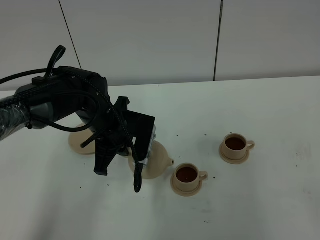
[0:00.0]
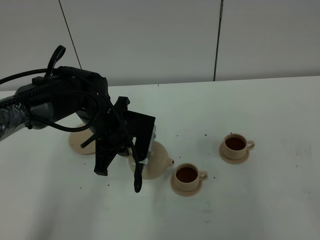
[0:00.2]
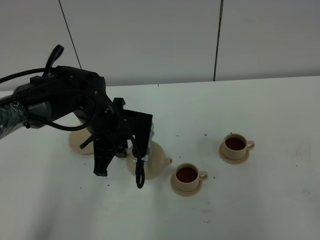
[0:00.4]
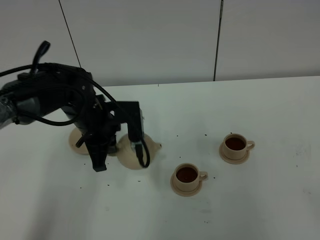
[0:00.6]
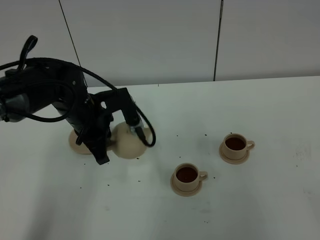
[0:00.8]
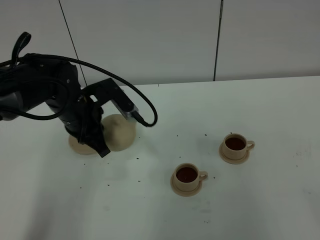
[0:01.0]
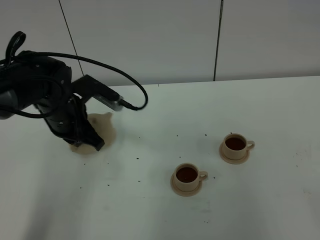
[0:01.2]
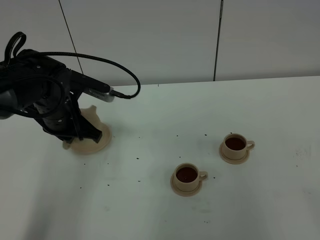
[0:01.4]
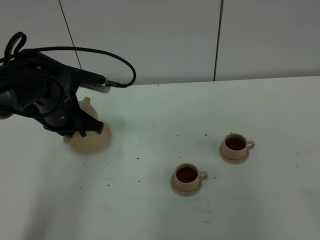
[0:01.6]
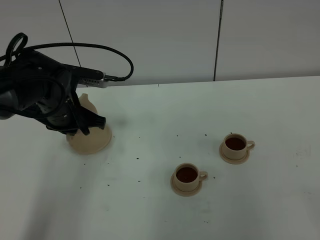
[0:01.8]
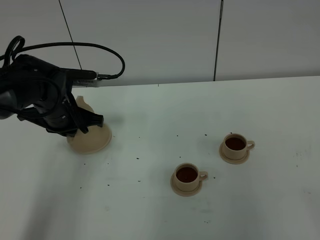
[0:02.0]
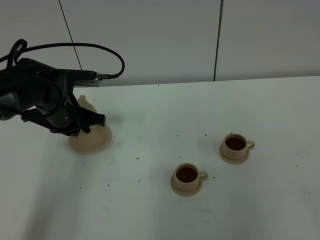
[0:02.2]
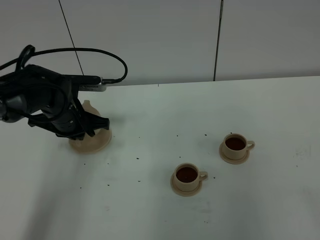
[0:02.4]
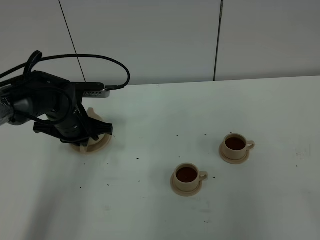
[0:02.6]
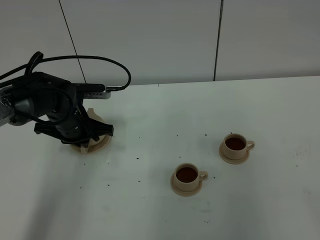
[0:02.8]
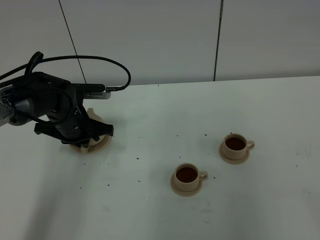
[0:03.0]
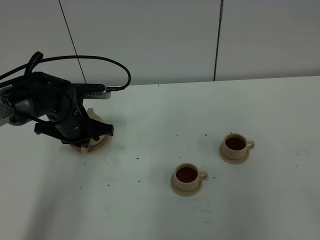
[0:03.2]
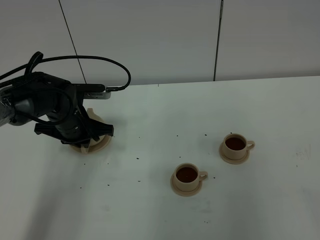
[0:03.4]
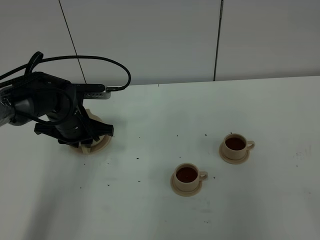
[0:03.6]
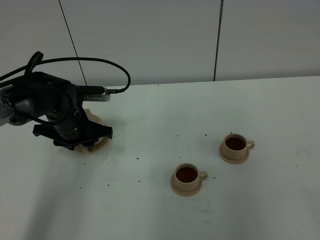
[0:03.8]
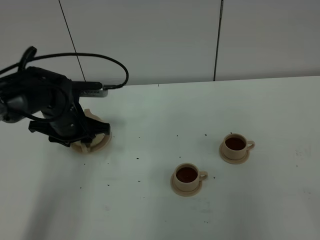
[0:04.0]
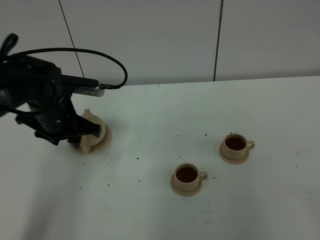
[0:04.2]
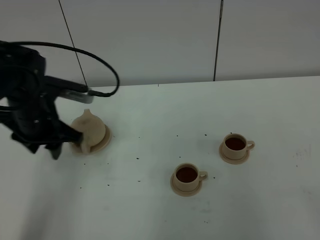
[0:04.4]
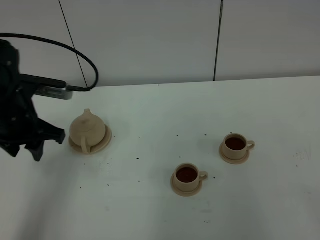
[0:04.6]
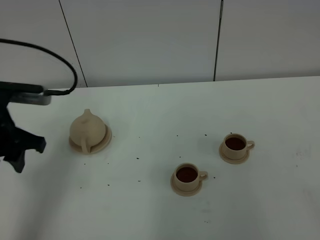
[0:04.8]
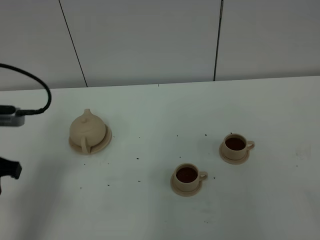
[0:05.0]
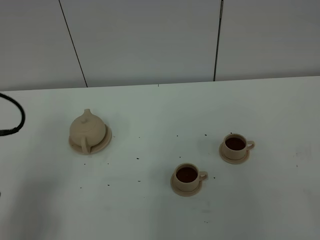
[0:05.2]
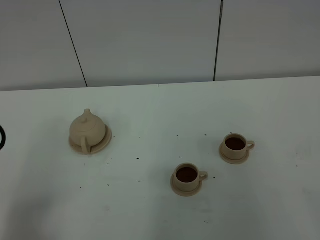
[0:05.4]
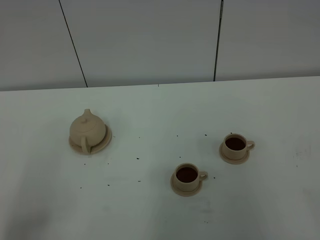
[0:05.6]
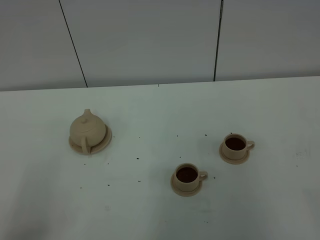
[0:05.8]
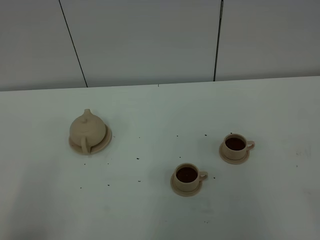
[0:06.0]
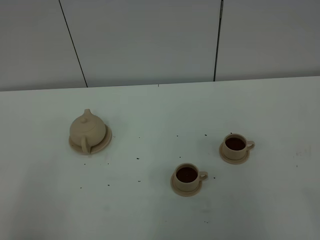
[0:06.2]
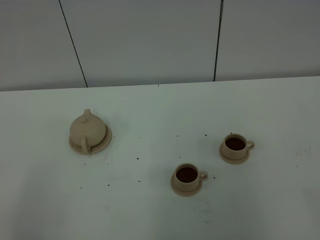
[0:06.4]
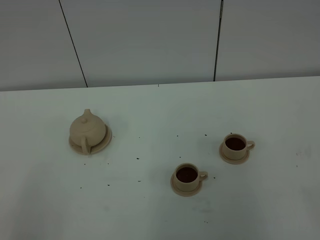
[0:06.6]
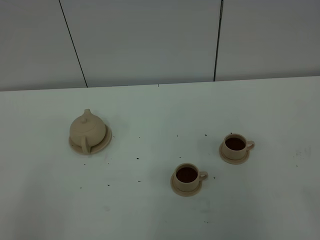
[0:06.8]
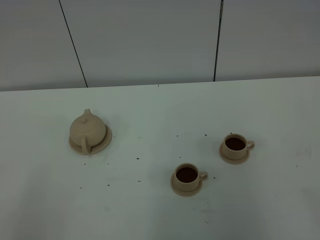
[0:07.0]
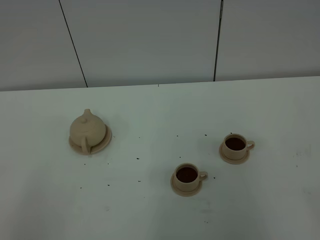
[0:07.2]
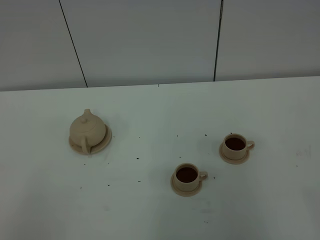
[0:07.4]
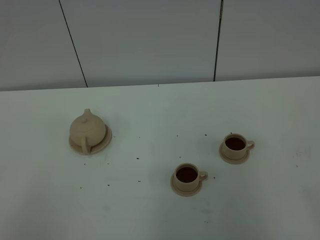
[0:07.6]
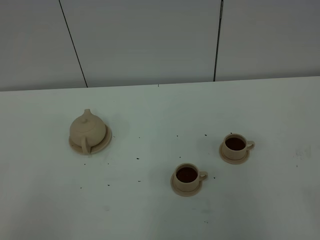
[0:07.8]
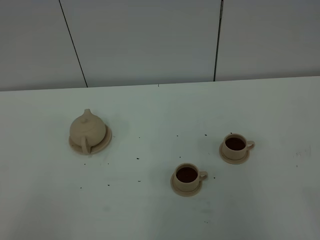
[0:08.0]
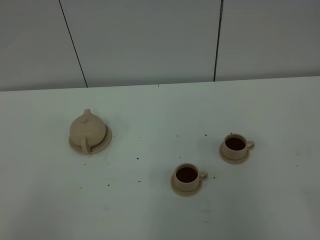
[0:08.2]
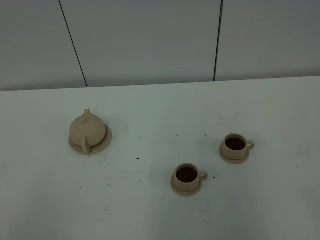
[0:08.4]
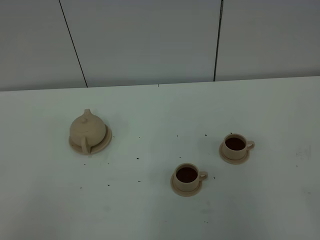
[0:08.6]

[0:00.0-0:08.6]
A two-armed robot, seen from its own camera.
Task of the whole recording: grasp the brown teapot and pour the tea into the two brown teacups one by one, put the brown teapot back in its original place.
0:00.0 to 0:01.4: The left gripper goes some 10 cm to the left.
0:01.4 to 0:02.8: The left gripper travels downward by approximately 5 cm.
0:02.8 to 0:04.4: The left gripper travels upward and backward by some 10 cm, and opens its fingers.
0:04.4 to 0:05.8: The left gripper goes approximately 25 cm backward.
